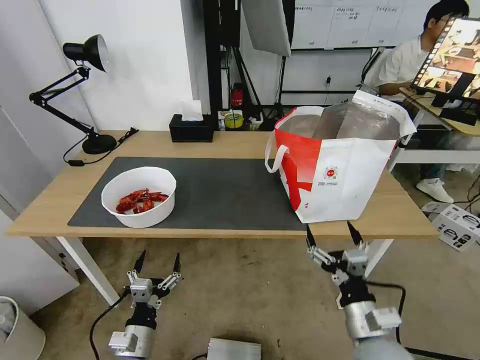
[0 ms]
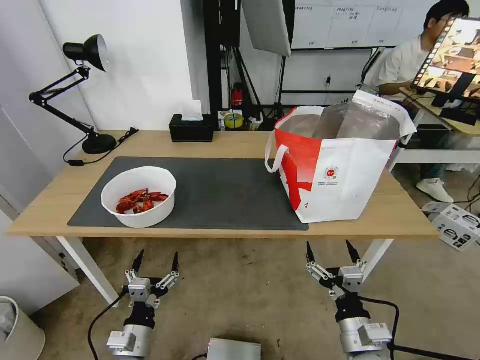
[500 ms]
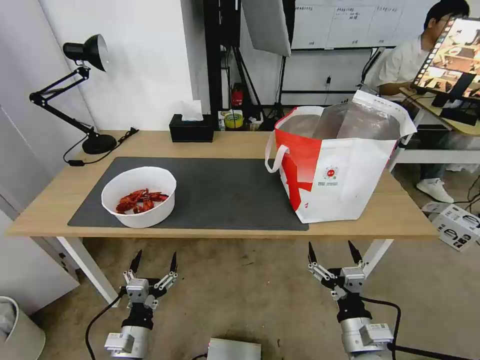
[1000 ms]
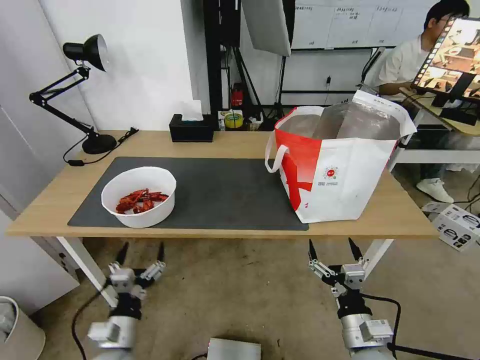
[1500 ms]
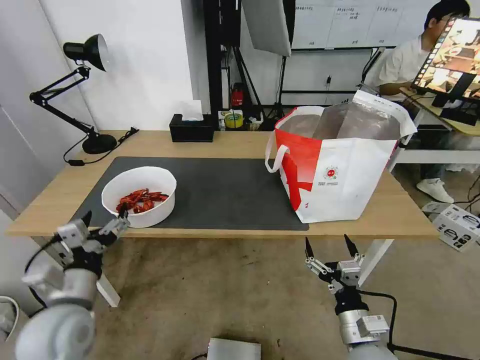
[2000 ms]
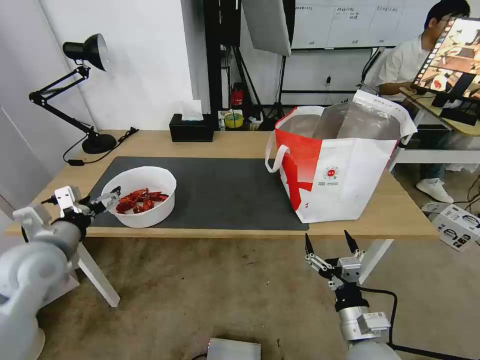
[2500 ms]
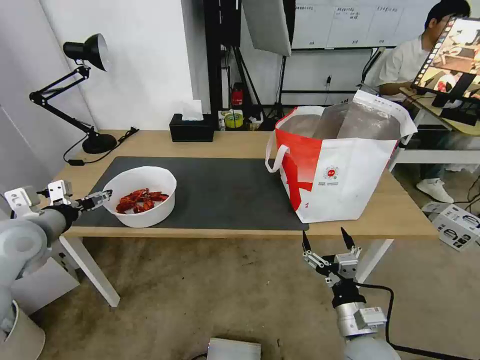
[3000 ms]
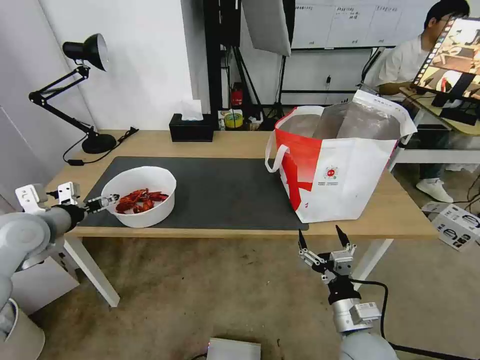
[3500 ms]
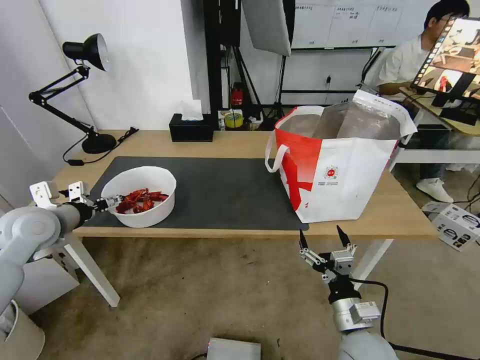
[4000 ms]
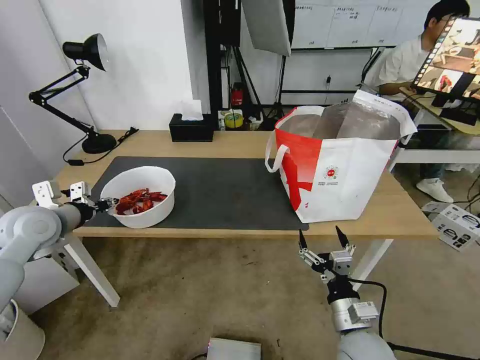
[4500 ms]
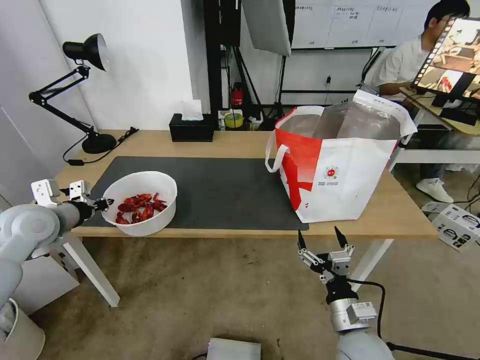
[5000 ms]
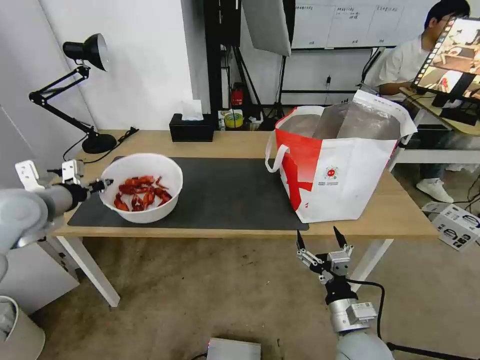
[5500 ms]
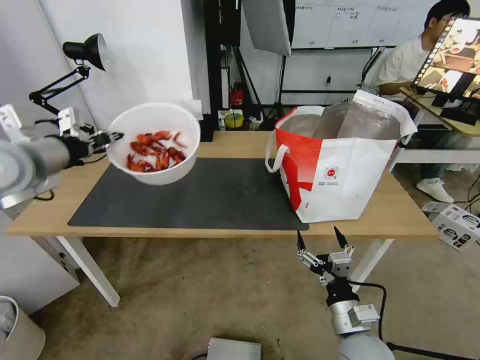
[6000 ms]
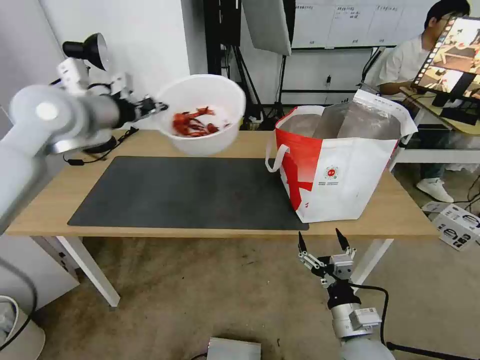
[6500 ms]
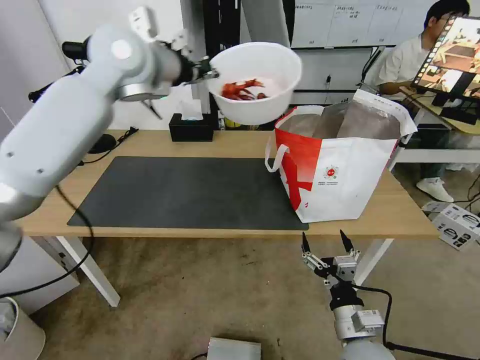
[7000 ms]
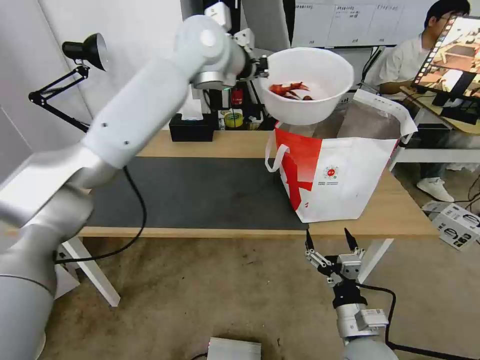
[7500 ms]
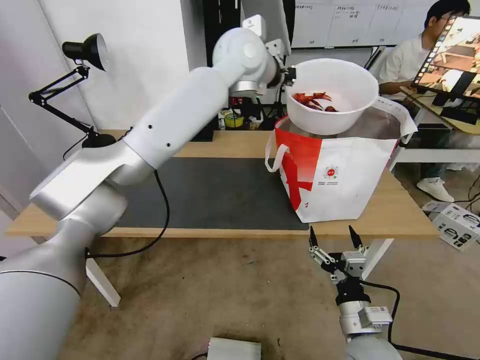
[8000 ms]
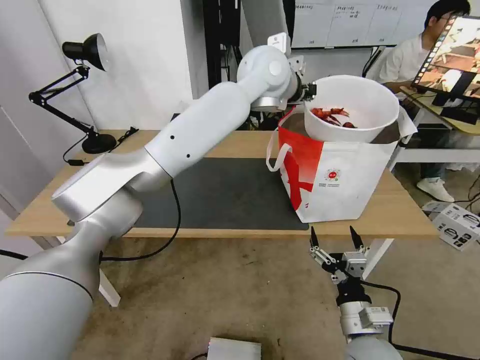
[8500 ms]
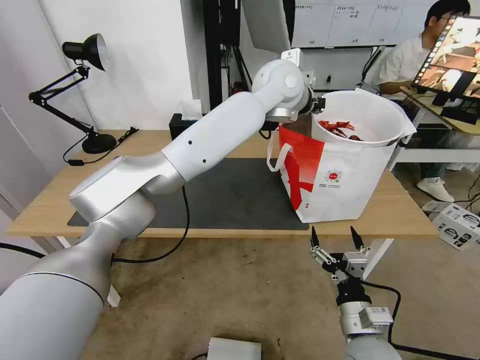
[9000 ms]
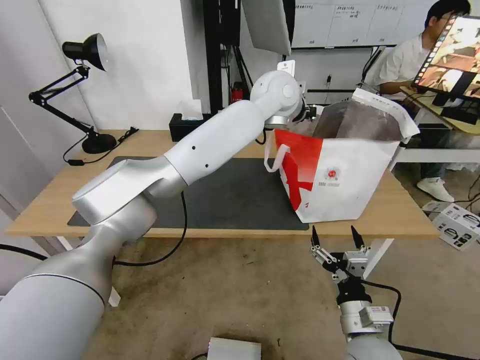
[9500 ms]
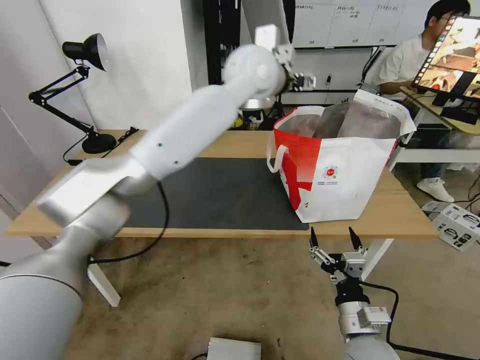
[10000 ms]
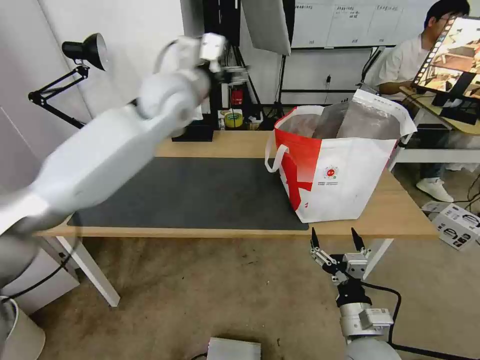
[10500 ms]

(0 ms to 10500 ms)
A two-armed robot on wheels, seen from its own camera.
Task of the whole recording: Pick up the trash from the table and place it into the takeout bag.
0 ms - 2000 ms: The left gripper is displaced upward by some 20 cm.
2000 ms - 4000 ms: The left gripper shifts about 20 cm forward and to the left.
4000 ms - 6500 ms: The left gripper moves upward and to the right, approximately 20 cm, and closes its fingers.
6500 ms - 8500 ms: The left gripper moves to the right, roughly 35 cm.
8500 ms - 10500 ms: The left gripper travels to the left by approximately 20 cm, and opens its fingers.

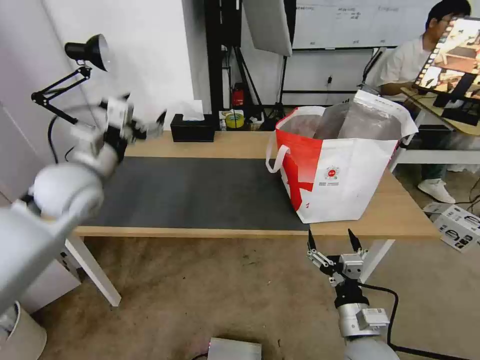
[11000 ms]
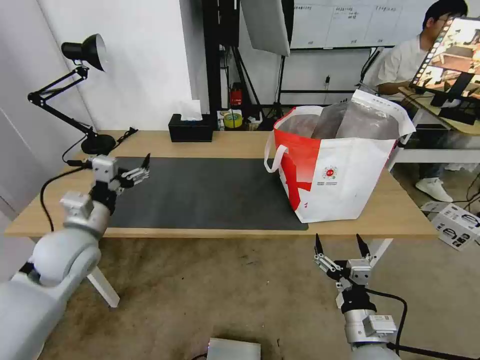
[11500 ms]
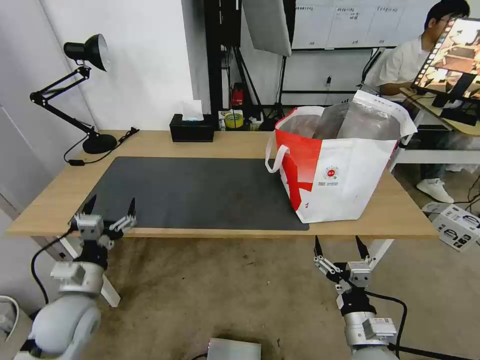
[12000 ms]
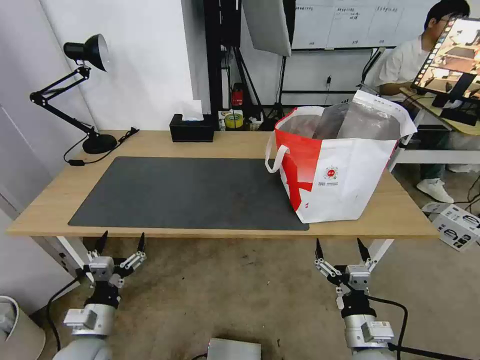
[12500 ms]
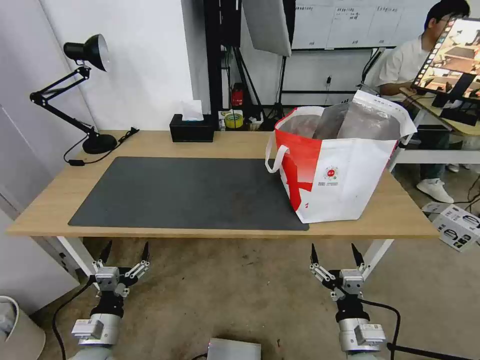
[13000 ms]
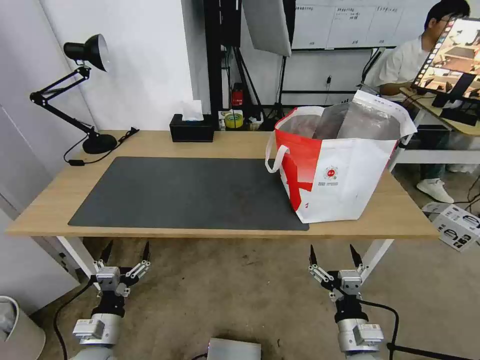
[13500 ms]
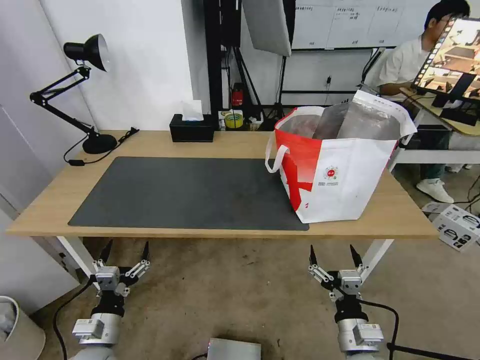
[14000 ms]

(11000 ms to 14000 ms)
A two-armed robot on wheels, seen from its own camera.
Task of the whole recording: Pick up the trash from the table and place it into the takeout bag.
11000 ms - 12500 ms: The left gripper shifts some 35 cm downward and backward.
12500 ms - 14000 ms: There are only small adjustments of the grippers.

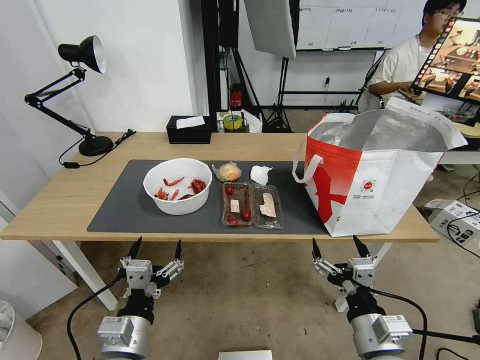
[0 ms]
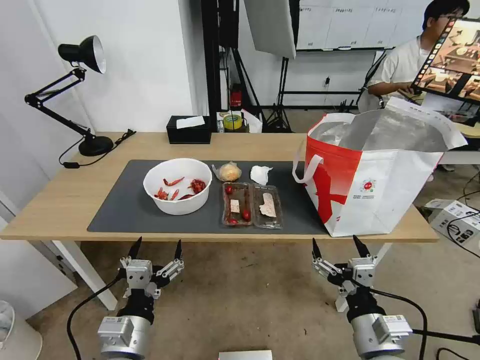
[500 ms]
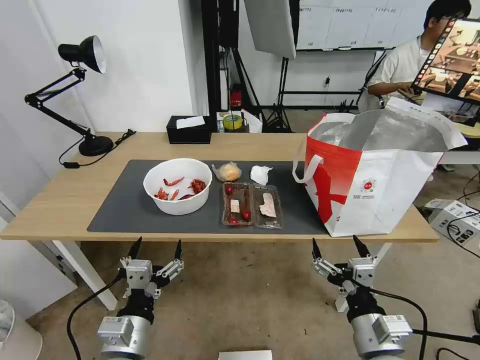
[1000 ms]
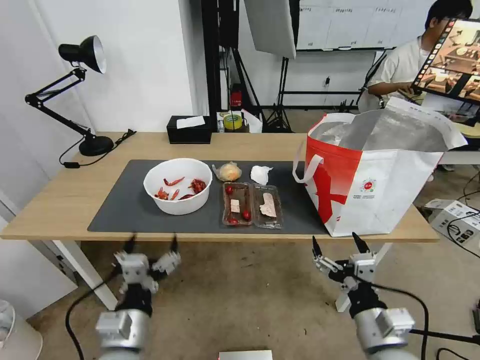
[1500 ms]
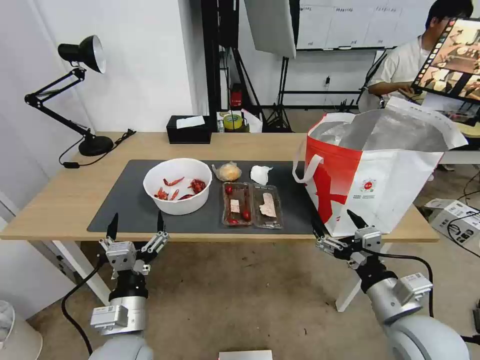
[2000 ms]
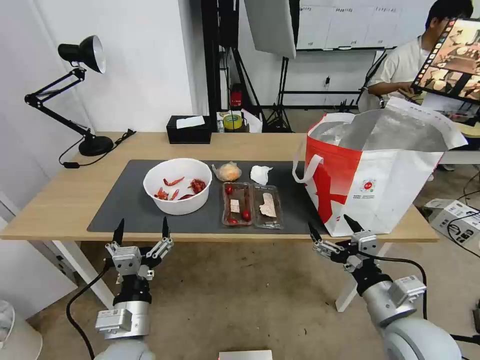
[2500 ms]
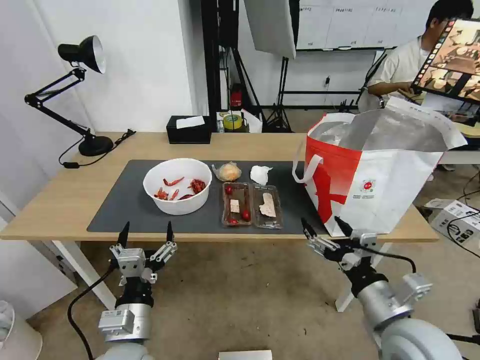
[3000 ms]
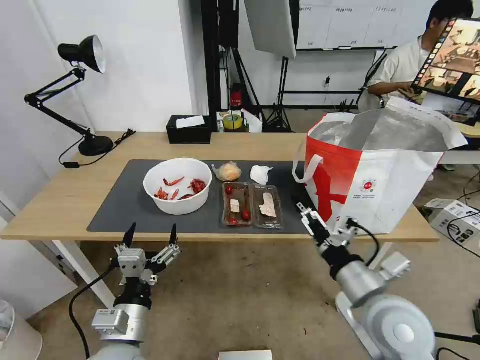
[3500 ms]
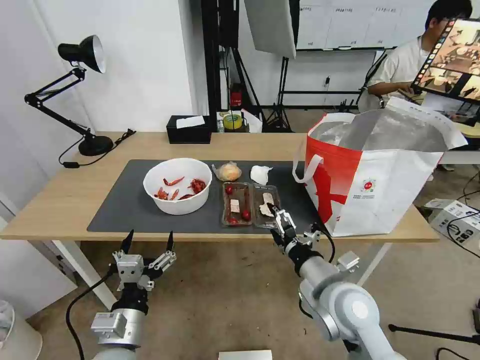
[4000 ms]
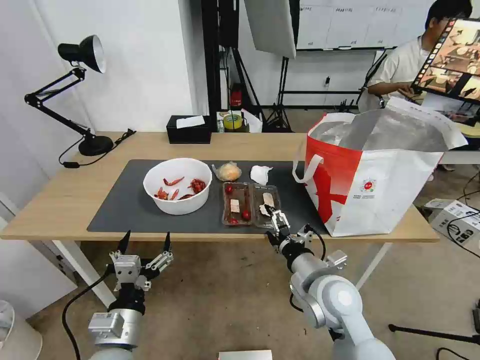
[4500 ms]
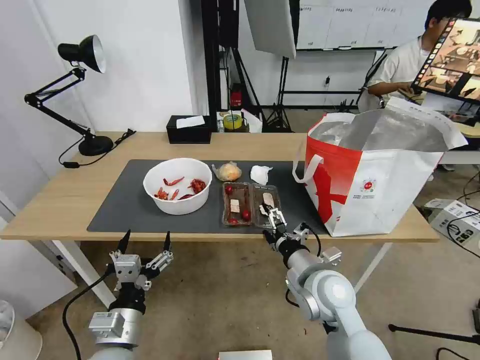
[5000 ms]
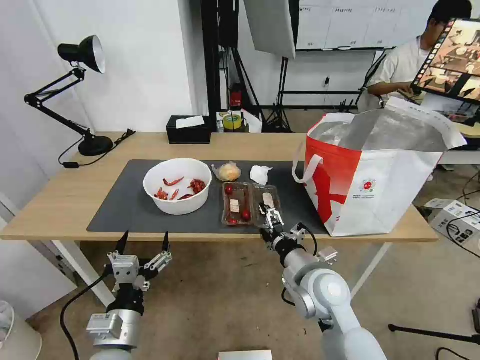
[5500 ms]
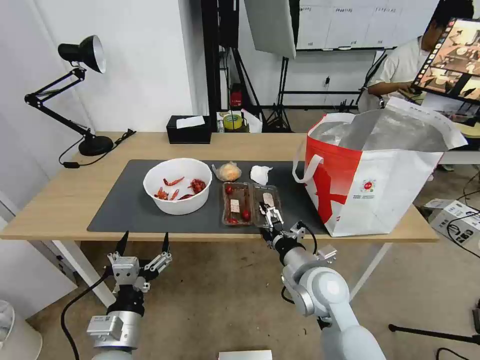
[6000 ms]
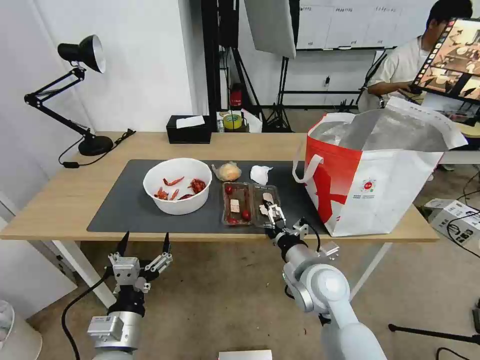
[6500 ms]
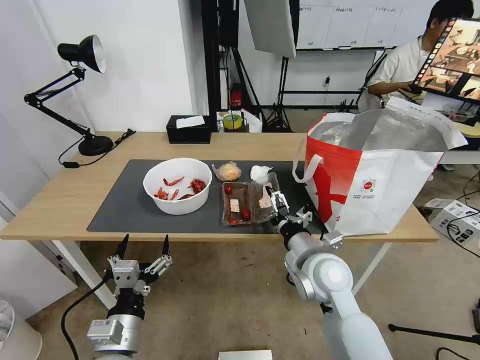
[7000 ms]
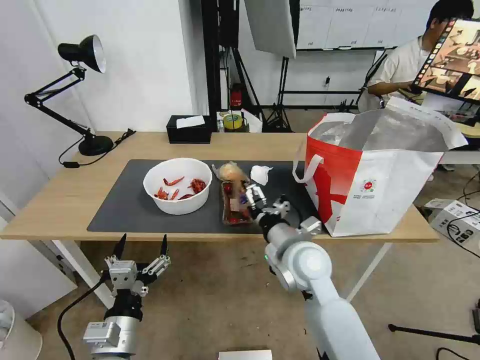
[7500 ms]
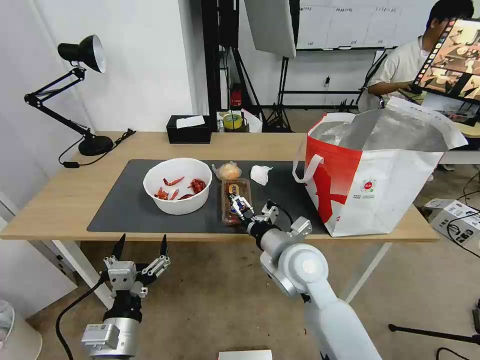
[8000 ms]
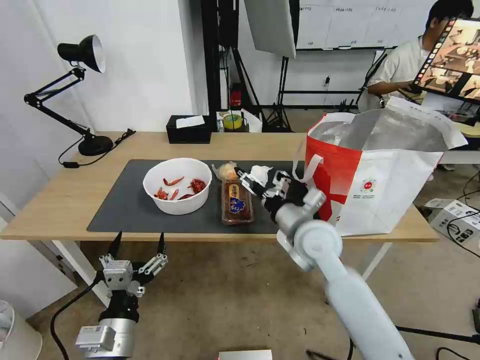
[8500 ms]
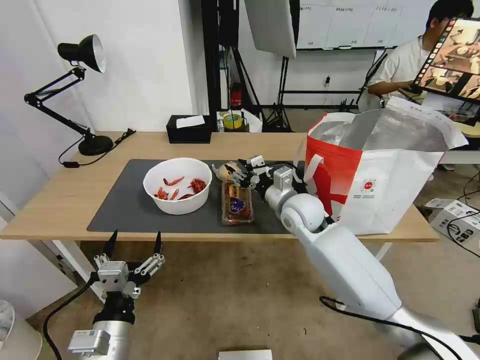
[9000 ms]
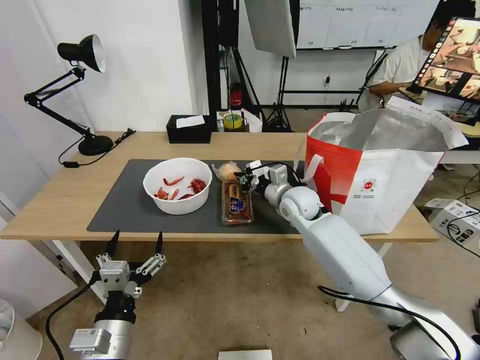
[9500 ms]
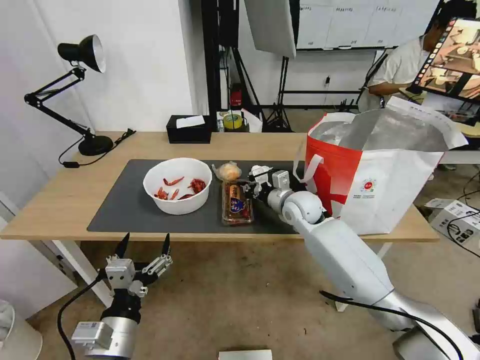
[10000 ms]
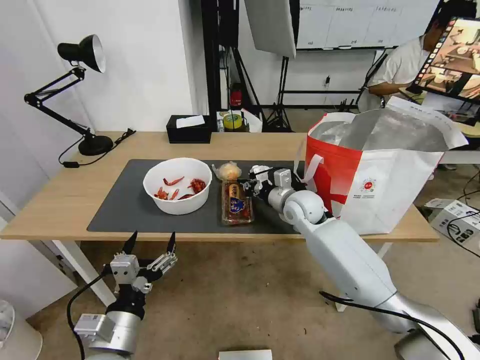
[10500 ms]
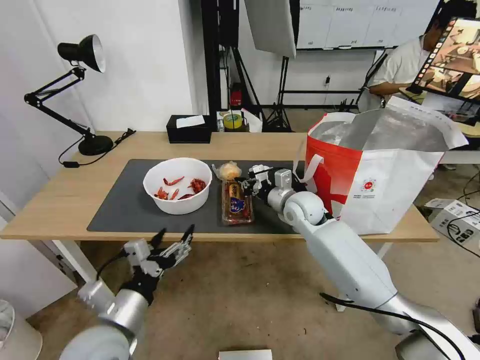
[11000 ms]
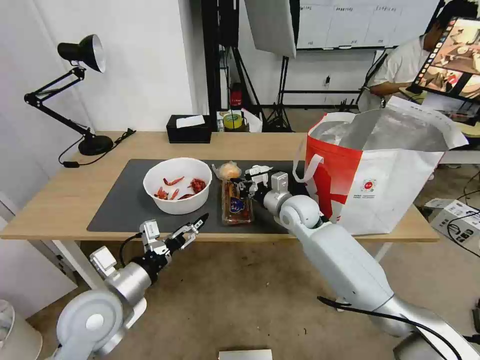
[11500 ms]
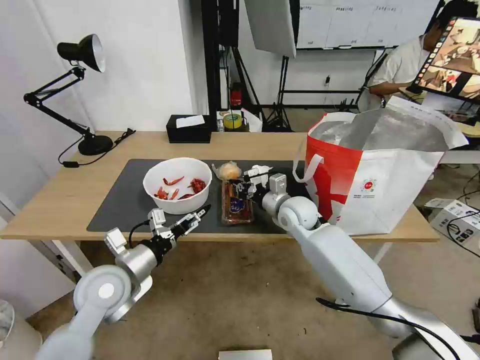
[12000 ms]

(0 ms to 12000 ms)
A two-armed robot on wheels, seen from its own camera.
Task of the whole recording: Pick up the trash from the table and place it into the takeout bag.
2000 ms - 4000 ms: The right gripper travels to the left and forward by approximately 10 cm.
4000 ms - 6000 ms: The right gripper changes place by roughly 5 cm.
6000 ms - 8000 ms: The right gripper moves approximately 5 cm.
8000 ms - 10000 ms: The right gripper travels forward by approximately 15 cm, and closes.
10000 ms - 12000 ms: The left gripper heads forward, covering about 15 cm.
